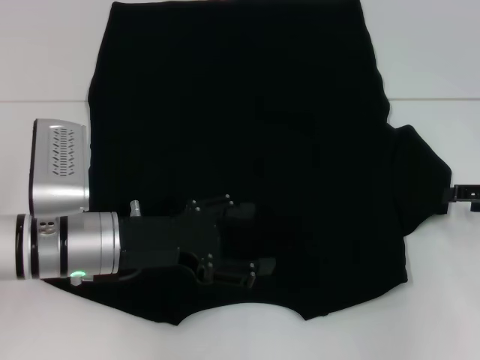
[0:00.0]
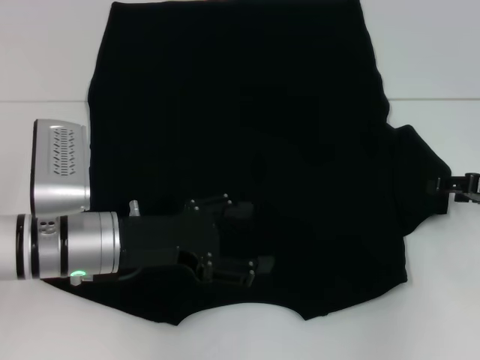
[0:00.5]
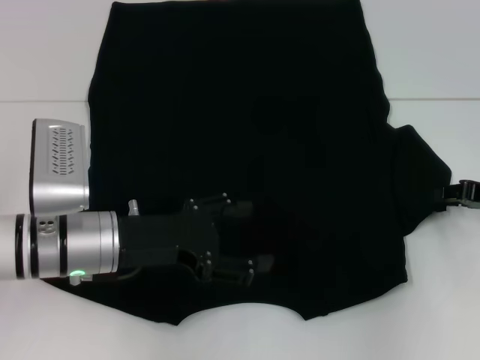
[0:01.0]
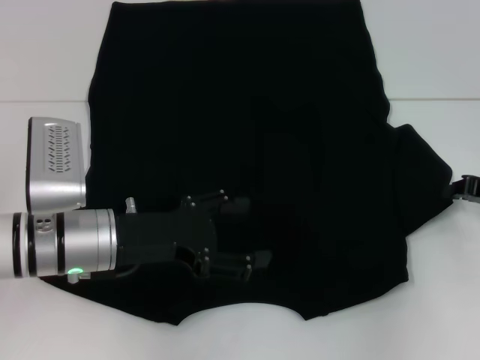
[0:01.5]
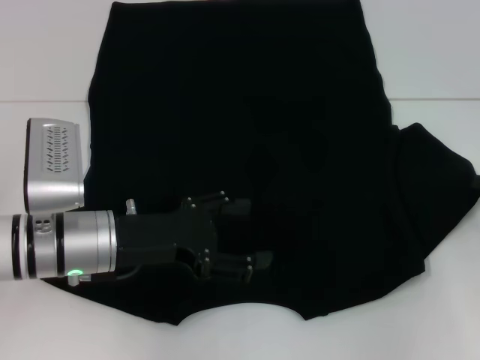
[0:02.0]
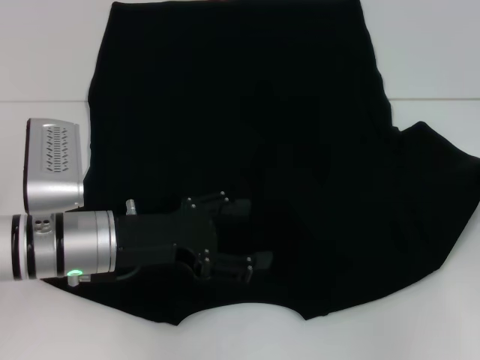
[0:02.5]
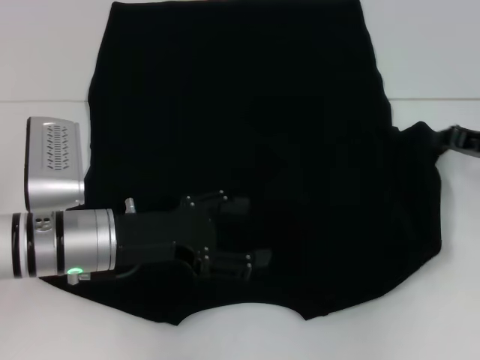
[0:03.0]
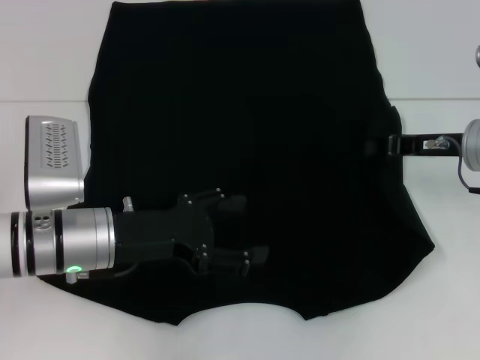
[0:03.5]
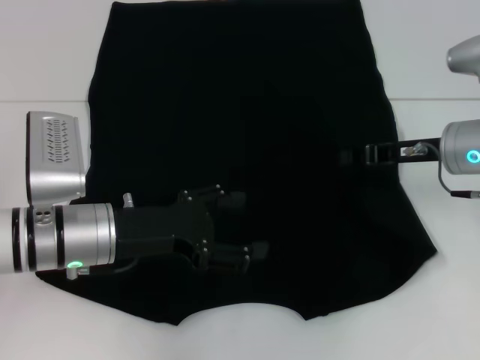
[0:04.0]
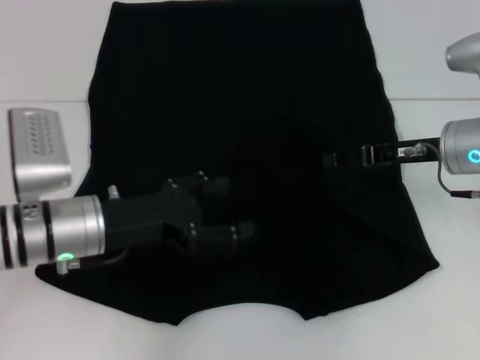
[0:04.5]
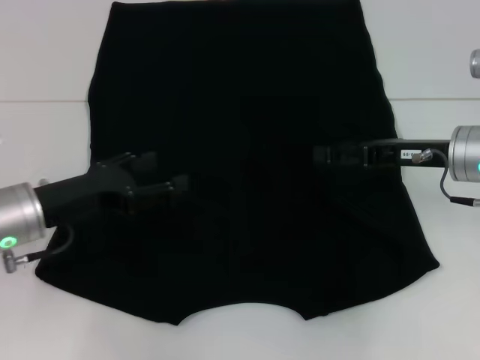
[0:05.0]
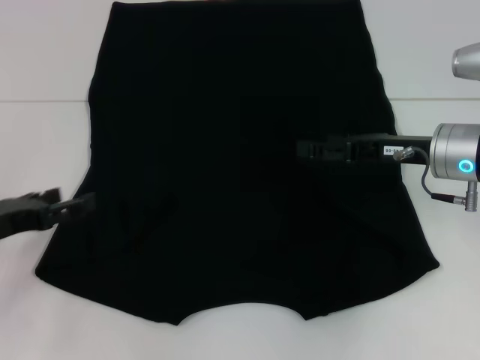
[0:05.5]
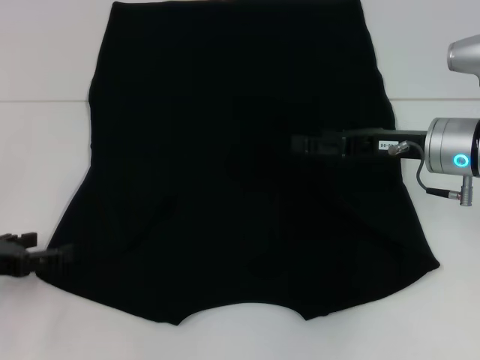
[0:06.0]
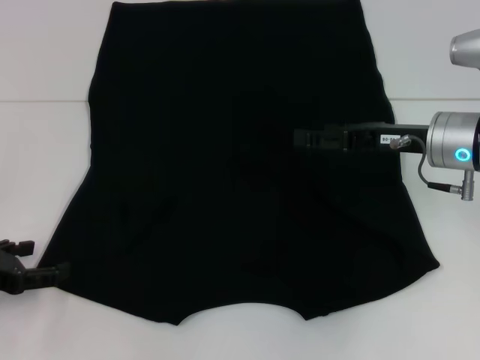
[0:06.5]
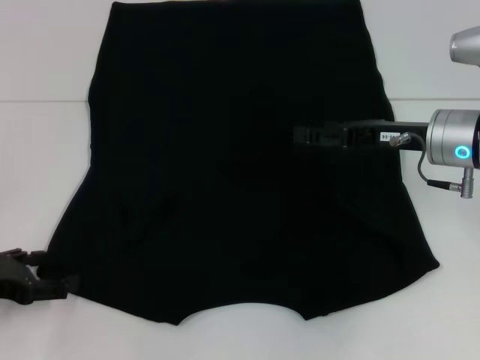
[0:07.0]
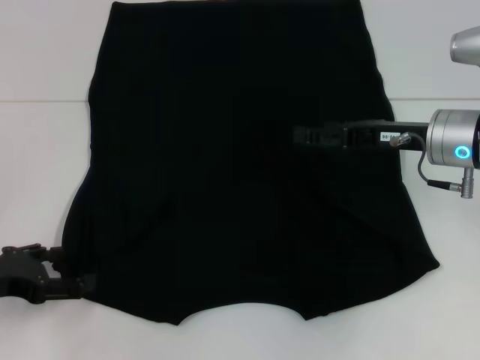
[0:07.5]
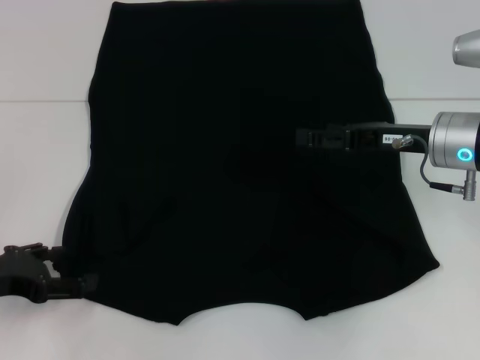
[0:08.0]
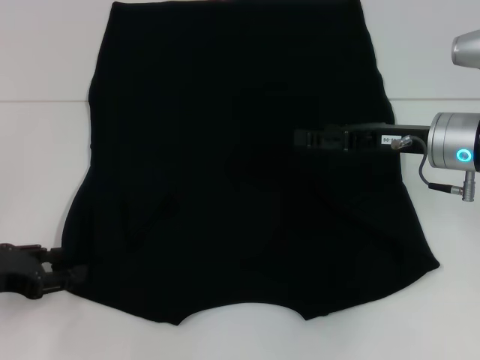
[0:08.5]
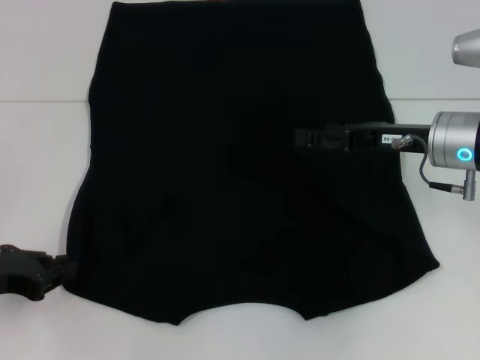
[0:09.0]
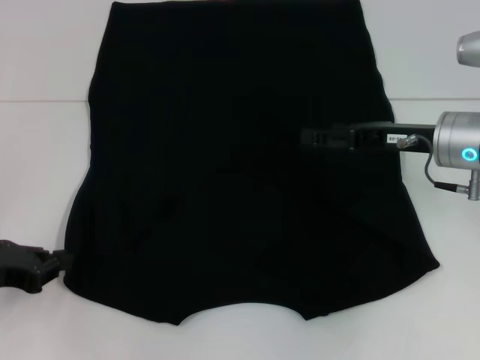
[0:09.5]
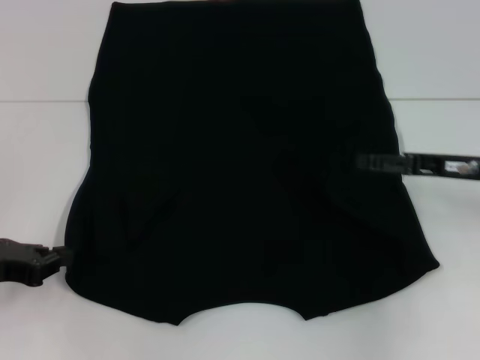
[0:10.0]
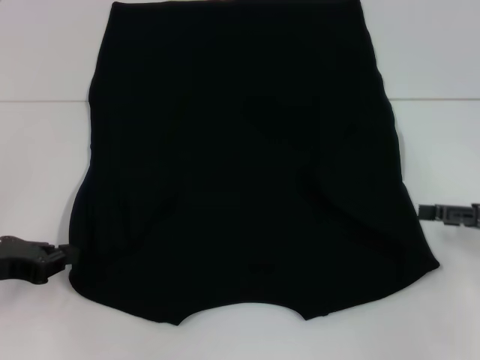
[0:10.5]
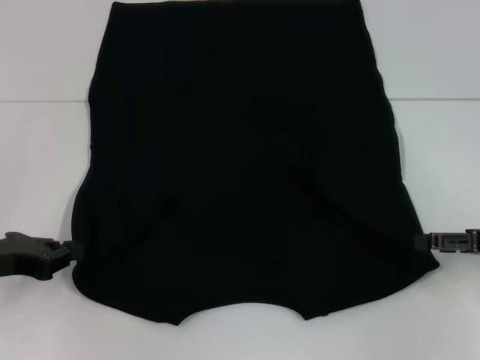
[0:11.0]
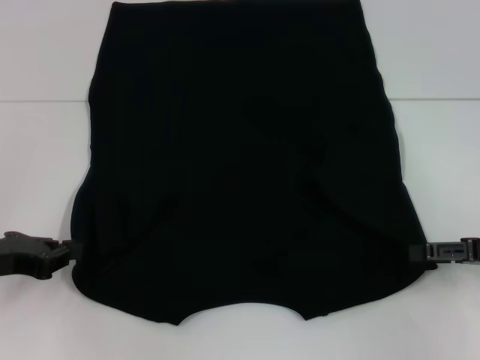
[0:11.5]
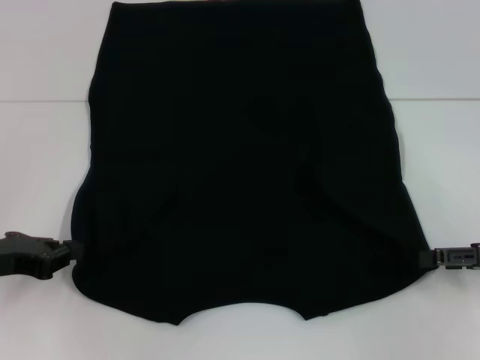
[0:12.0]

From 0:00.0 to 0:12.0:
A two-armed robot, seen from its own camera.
Step, from 0:00.0 to 0:04.0: Fold the bottom right sleeve with your right hand.
From 0:00.0 to 0:02.0: The right gripper closes up.
From 0:02.0 to 0:04.0: The right gripper shifts some 15 cm to the left.
From 0:04.0 to 0:06.0: The left gripper shifts about 15 cm to the left; the right gripper opens.
From 0:06.0 to 0:08.0: The grippers stay close to where they were, moving slightly.
From 0:08.0 to 0:10.0: The right gripper travels to the right by some 5 cm. Meanwhile the left gripper closes its fingers.
From 0:10.0 to 0:12.0: The right gripper shifts approximately 10 cm to the right and backward.

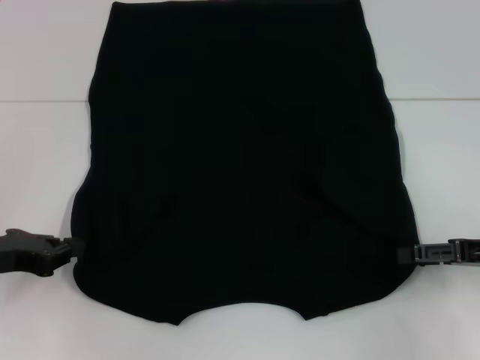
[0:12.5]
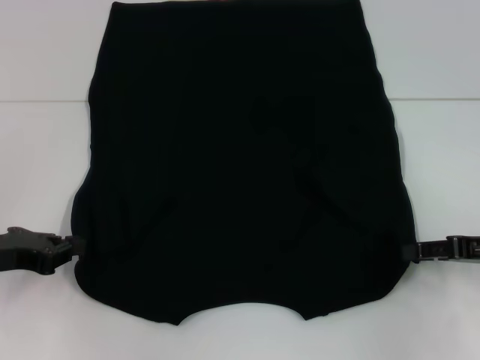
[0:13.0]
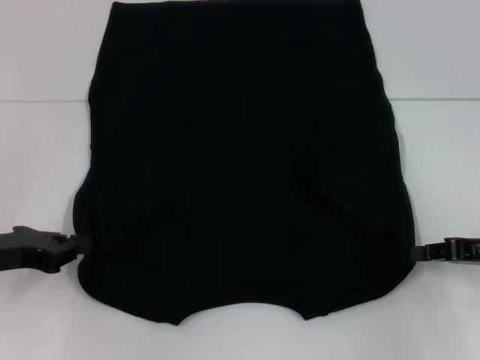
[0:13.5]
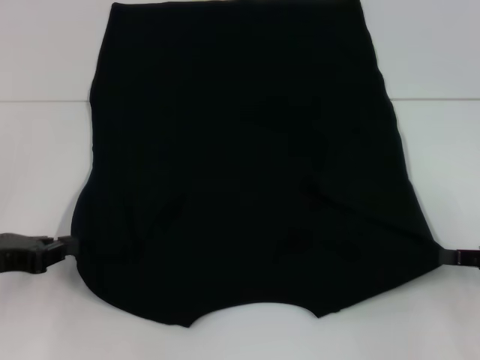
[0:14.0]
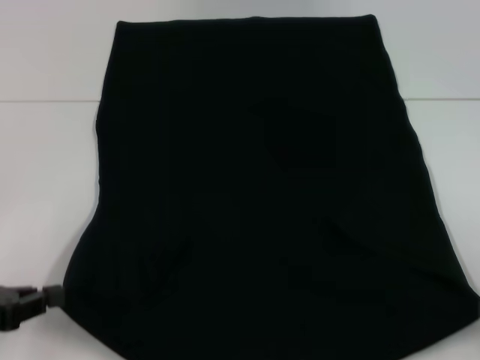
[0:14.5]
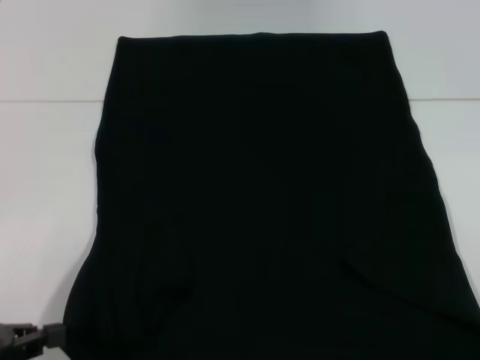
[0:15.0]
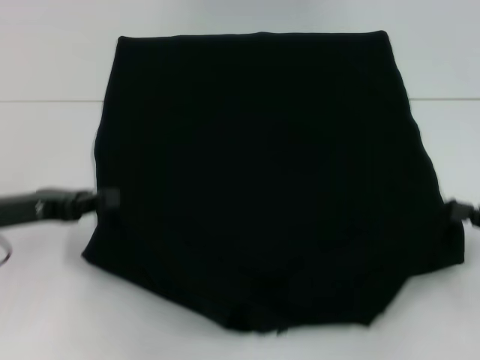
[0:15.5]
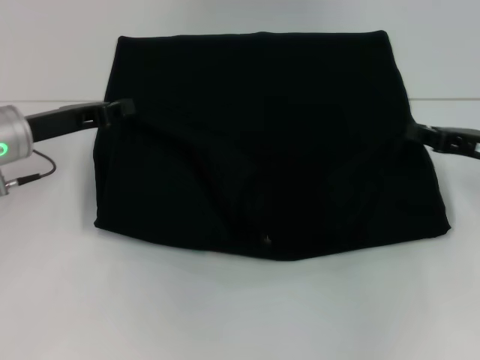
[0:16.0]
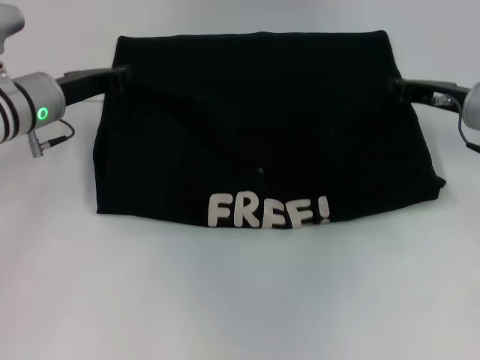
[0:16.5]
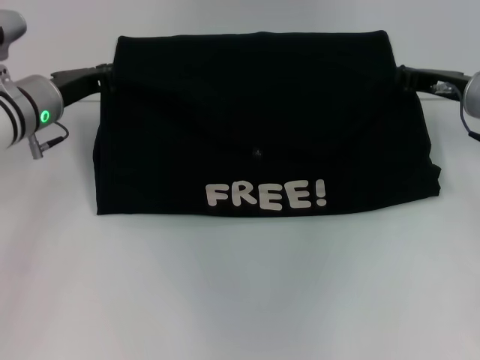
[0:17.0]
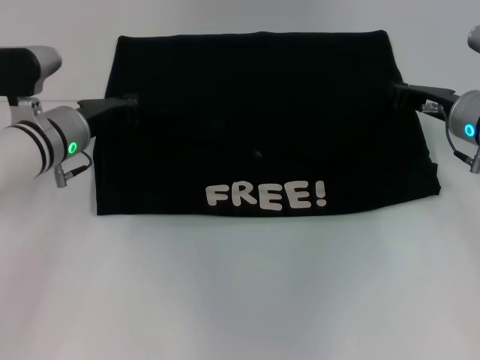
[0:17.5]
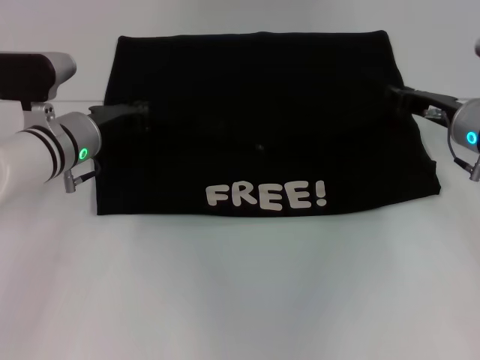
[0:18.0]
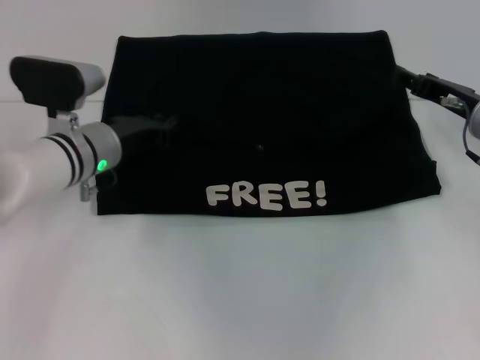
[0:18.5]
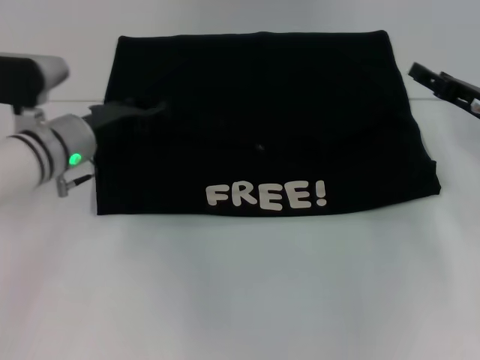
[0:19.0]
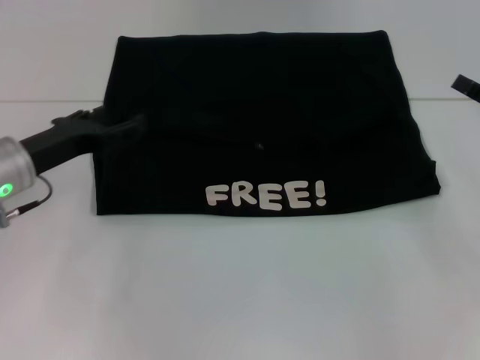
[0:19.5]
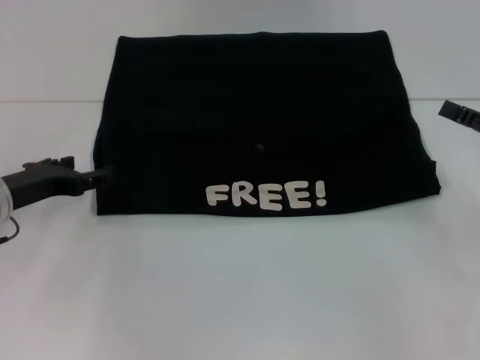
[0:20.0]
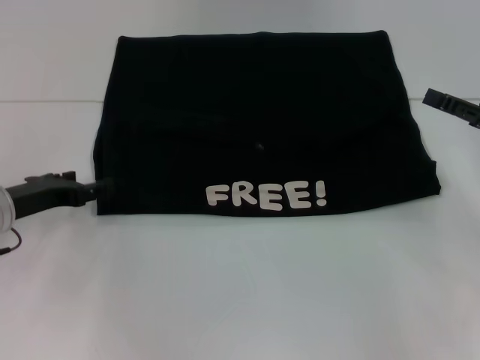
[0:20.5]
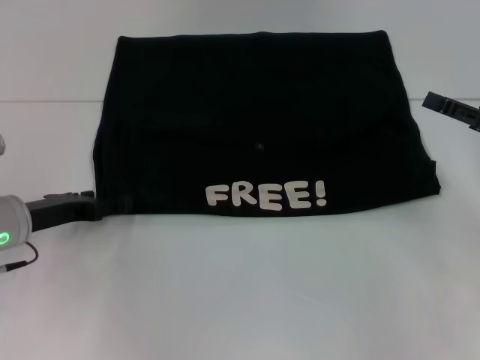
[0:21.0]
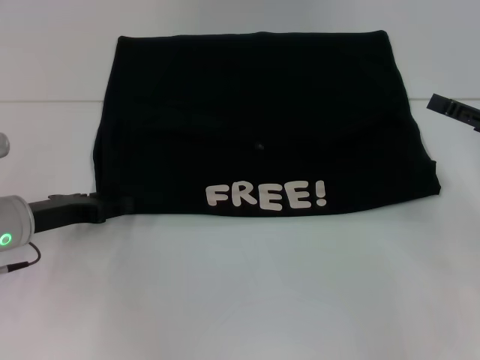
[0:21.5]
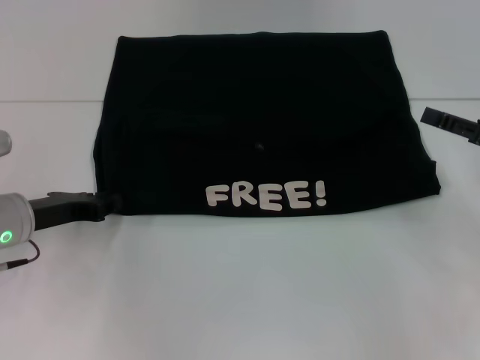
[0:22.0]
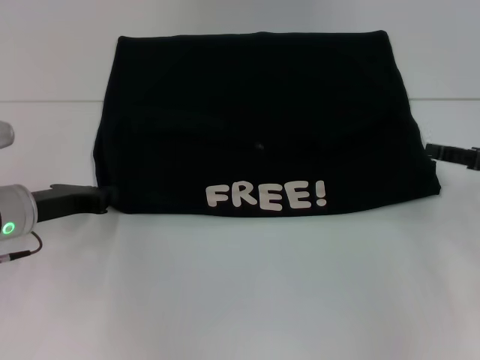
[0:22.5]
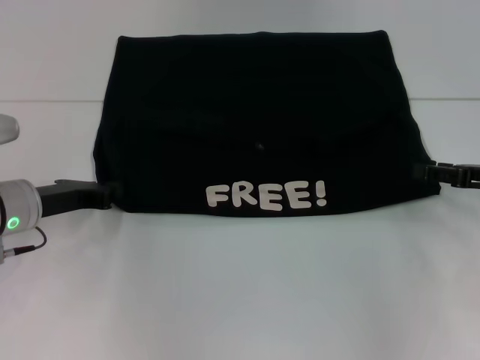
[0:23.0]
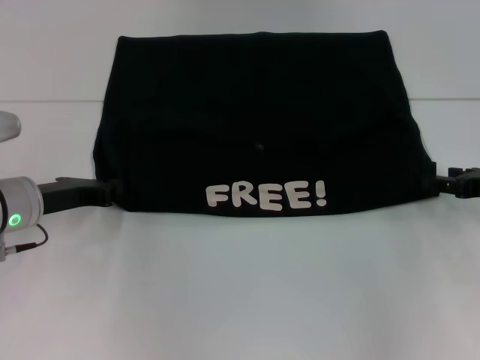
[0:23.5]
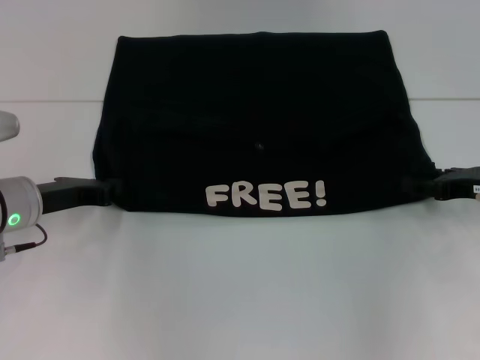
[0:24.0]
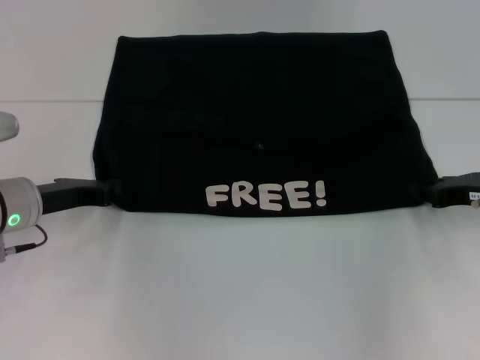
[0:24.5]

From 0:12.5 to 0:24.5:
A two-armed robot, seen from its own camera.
Step, from 0:14.0 to 0:18.5: Fold the clothes with your left hand.
Step, from 0:14.0 to 0:18.5: Fold the clothes with your right hand.
From 0:12.5 to 0:14.5: The right gripper goes some 10 cm backward and to the right, and closes up. The left gripper heads backward, covering about 5 cm.
From 0:14.5 to 0:16.5: The right gripper shifts some 25 cm forward and to the left; the left gripper heads forward and to the right, covering roughly 25 cm.
From 0:16.5 to 0:18.5: The left gripper heads to the right, covering roughly 5 cm. Meanwhile the right gripper opens its fingers.
From 0:18.5 to 0:20.5: The right gripper travels backward and to the right by roughly 10 cm. The left gripper travels to the left and backward by about 15 cm, and opens.
From 0:20.5 to 0:22.5: The left gripper closes up.
From 0:22.5 to 0:24.5: The right gripper changes place by approximately 5 cm.

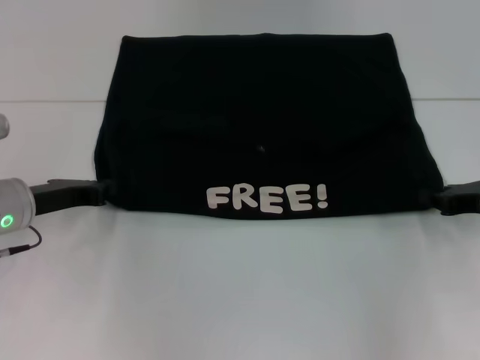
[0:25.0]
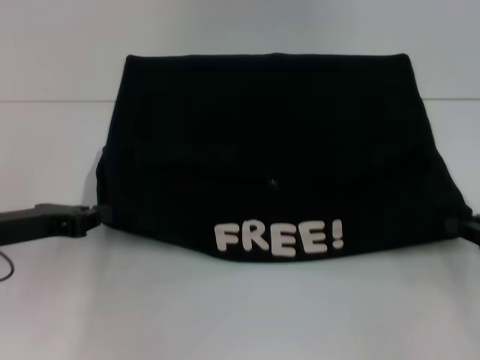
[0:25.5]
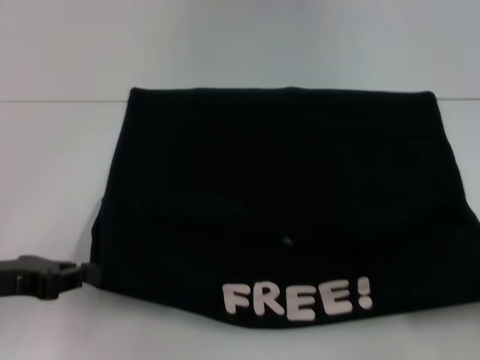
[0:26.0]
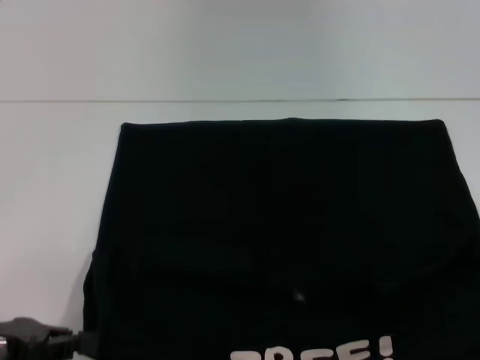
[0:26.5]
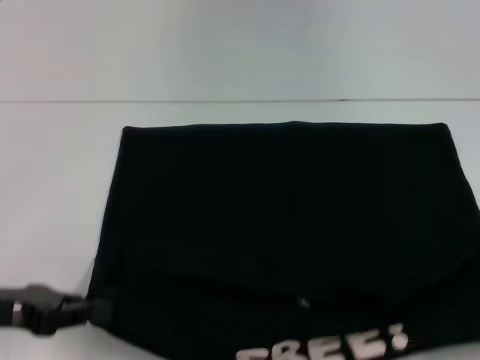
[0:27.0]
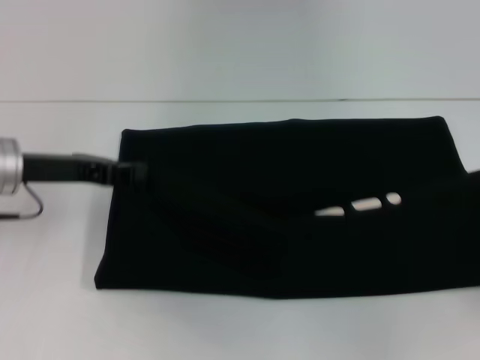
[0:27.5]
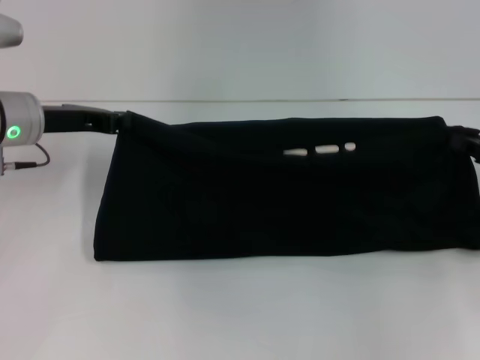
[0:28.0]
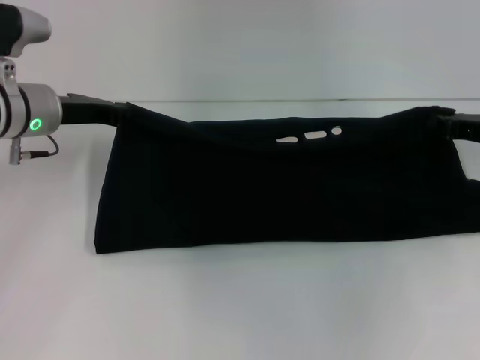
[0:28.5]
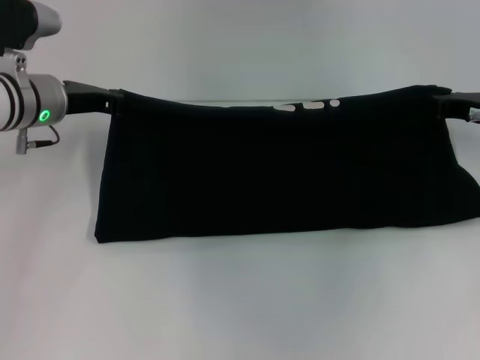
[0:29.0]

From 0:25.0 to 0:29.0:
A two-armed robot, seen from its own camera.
From 0:25.0 to 0:27.0: The right gripper goes approximately 20 cm backward and to the right. Meanwhile the left gripper heads backward, covering roughly 10 cm.
From 0:27.0 to 0:29.0: The left gripper shifts roughly 20 cm forward; the right gripper shifts about 30 cm forward and to the left.
